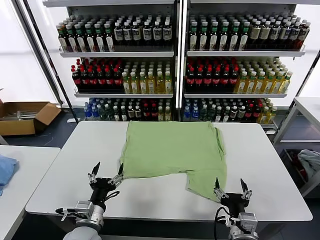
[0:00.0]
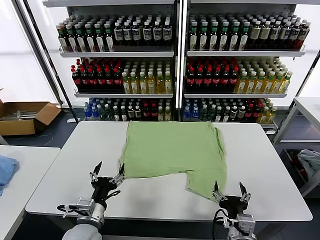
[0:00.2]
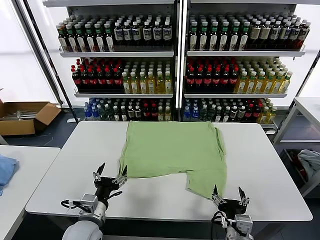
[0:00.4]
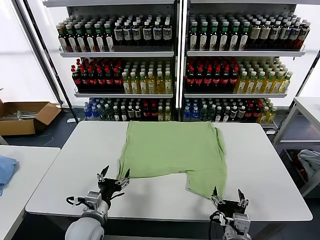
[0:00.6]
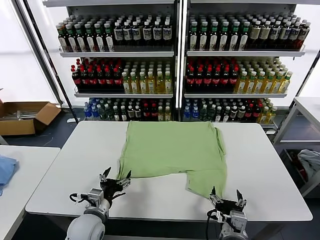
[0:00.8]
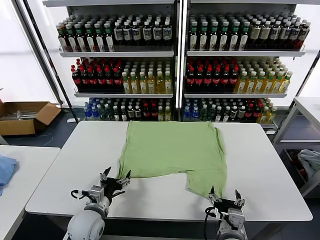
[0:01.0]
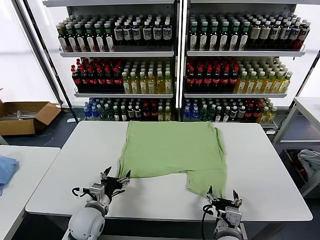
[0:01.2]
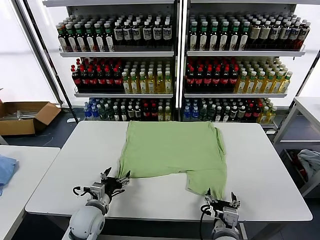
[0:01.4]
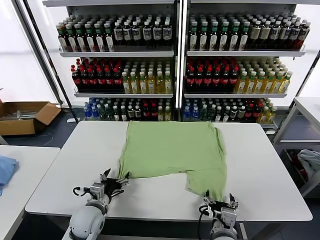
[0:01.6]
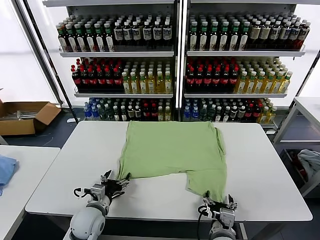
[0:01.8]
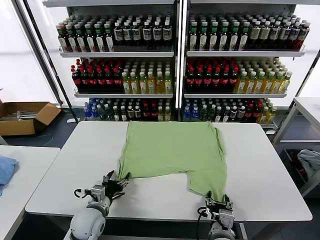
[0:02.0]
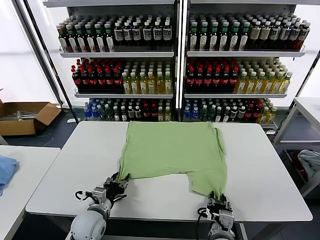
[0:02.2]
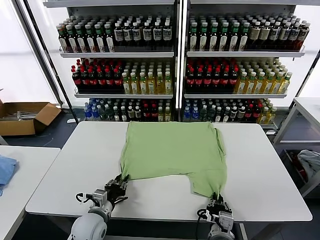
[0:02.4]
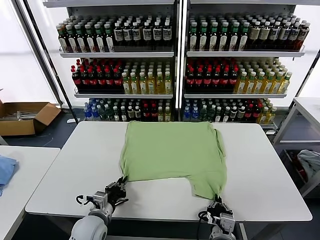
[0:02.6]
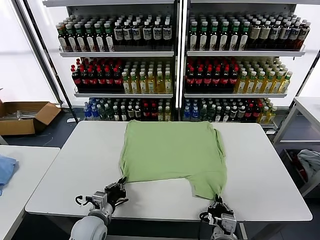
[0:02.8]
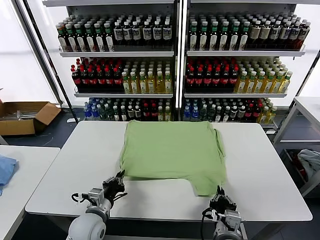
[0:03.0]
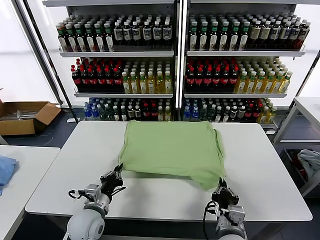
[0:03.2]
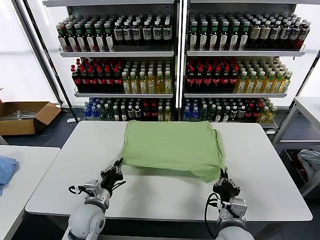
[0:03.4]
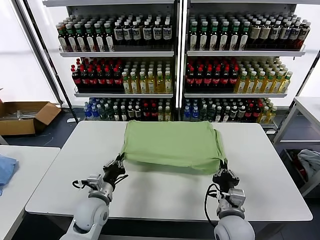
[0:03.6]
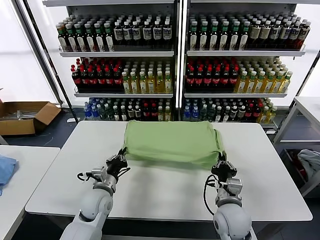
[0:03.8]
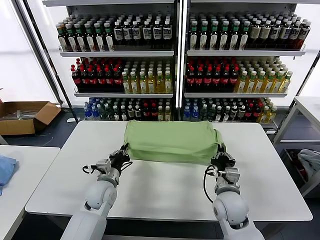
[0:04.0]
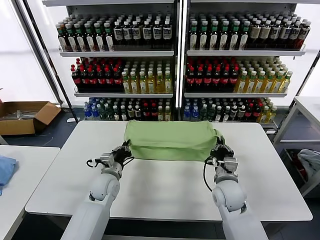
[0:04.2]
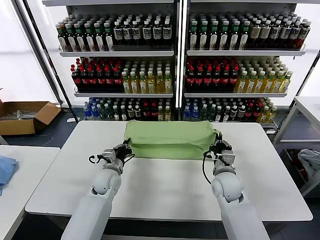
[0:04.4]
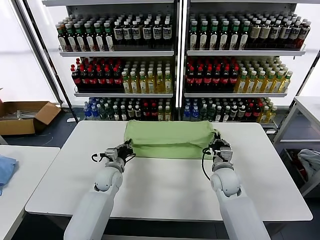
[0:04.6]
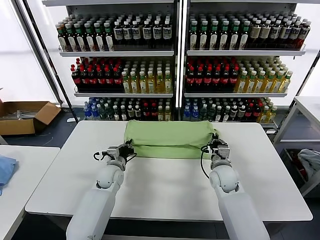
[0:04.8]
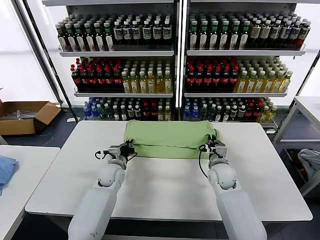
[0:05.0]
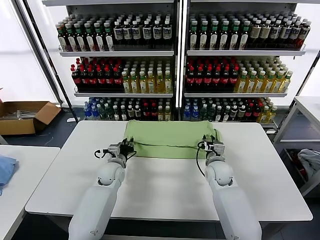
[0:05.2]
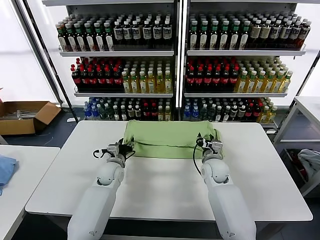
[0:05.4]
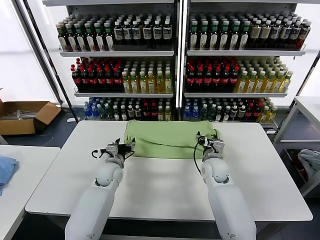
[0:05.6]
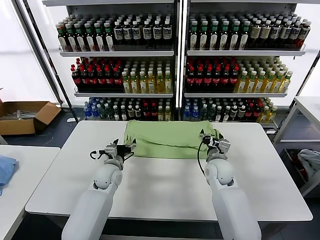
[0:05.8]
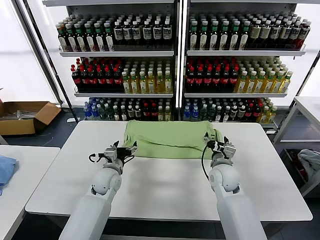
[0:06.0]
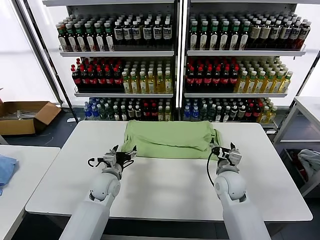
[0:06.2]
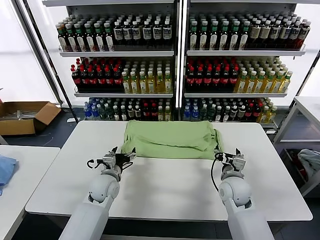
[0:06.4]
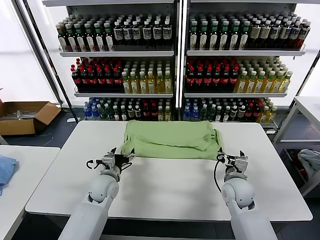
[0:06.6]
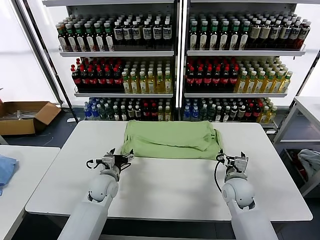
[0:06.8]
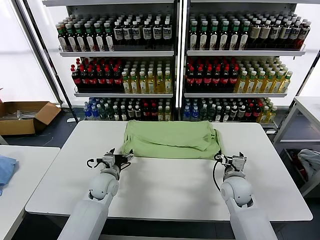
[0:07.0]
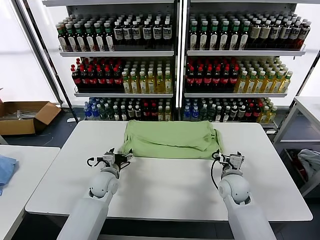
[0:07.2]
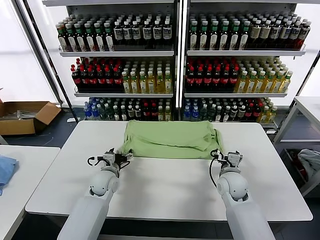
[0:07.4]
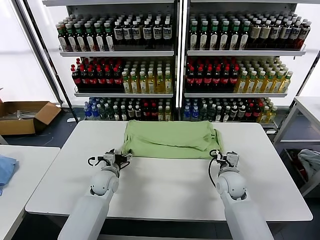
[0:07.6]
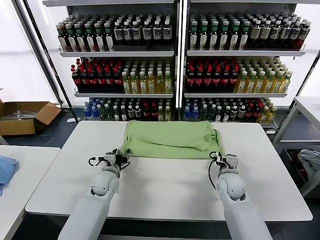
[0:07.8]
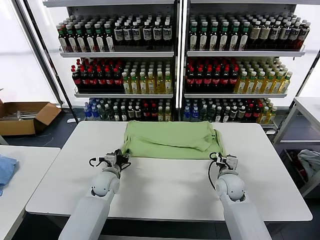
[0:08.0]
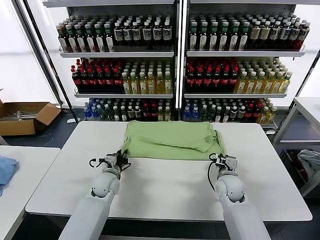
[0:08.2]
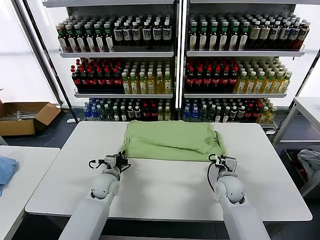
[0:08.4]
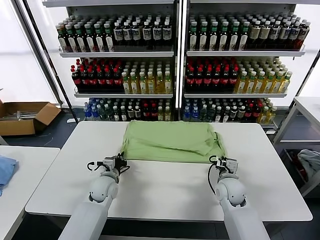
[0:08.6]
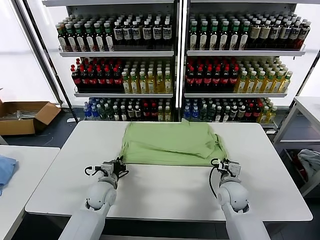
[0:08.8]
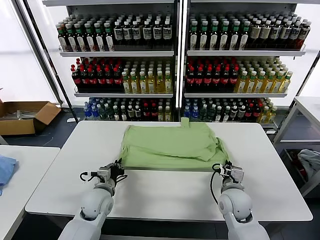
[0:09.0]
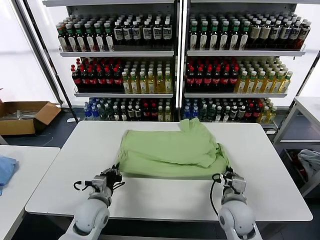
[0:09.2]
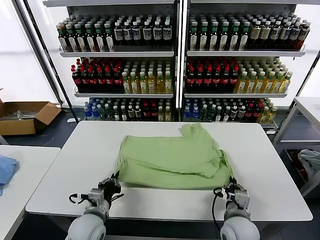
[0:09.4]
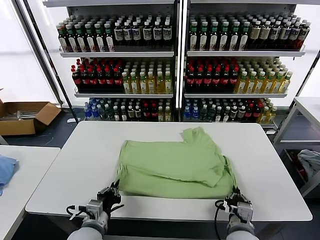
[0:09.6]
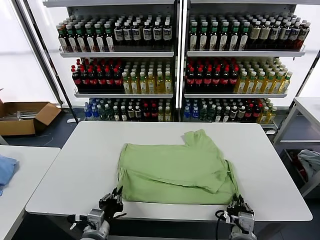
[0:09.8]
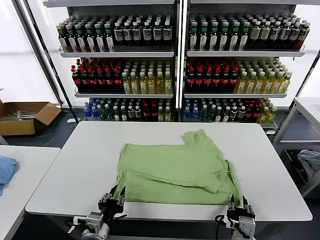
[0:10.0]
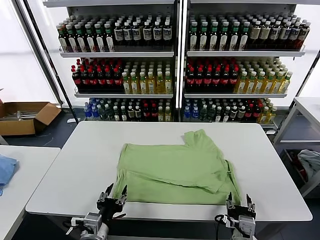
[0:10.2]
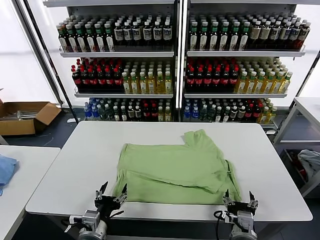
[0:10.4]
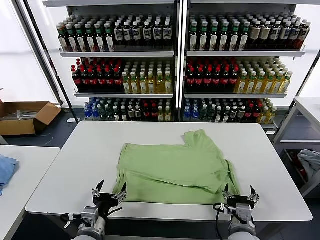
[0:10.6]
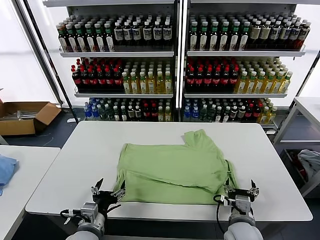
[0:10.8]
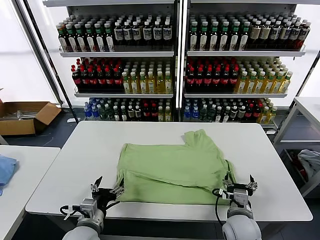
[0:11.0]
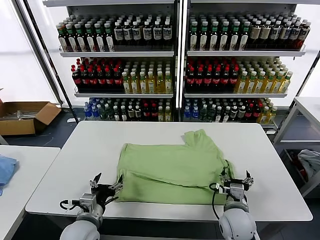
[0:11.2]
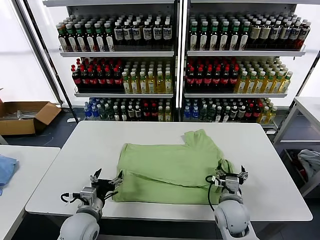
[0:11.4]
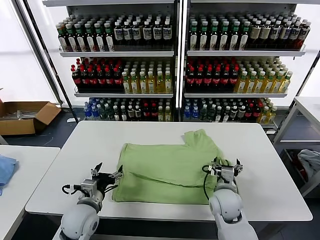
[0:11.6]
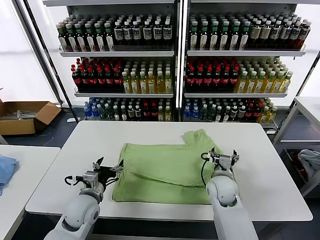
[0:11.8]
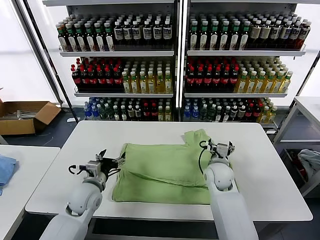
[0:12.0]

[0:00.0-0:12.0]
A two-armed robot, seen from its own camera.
Task of the whole recording: fold and organize the clothes.
Step, 0.0 to 2.6 s: use both grippers simultaneously to clamp the lower edge of the clothing fabric.
Step, 3.0 to 5.4 s: use both grippers to drag the lower edge of the fabric forward and fold it over the upper edge.
Step, 5.8 to 10.0 s: Drag the clothes downward with both gripper.
1.6 to 3.0 s: The left gripper closes up; the right gripper closes up.
3.0 to 4.4 s: The grippers both shift forward by roughly 20 cm.
4.4 to 6.0 s: The right gripper opens, while the left gripper opens.
6.0 to 7.6 s: The right gripper closes.
7.6 to 9.0 s: Both grippers move backward, approximately 10 cm. The left gripper closes up. Meanwhile the right gripper closes up.
9.0 to 10.4 s: The left gripper is displaced backward by some 15 cm, and opens its fingers; the right gripper travels backward by about 10 cm, and opens its fingers.
10.4 to 12.0 s: The right gripper moves forward, roughly 25 cm. Meanwhile the left gripper shifts approximately 15 cm forward.

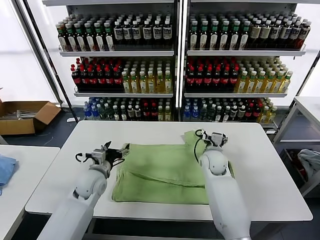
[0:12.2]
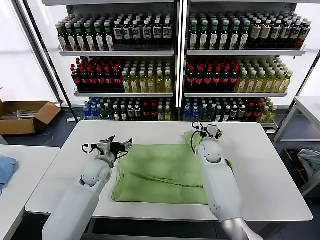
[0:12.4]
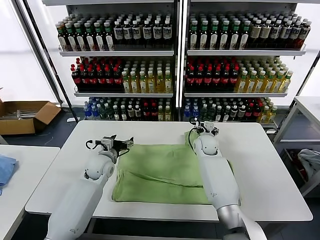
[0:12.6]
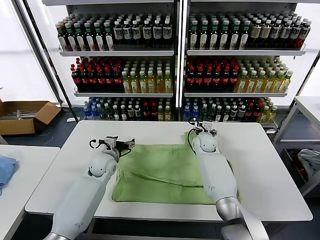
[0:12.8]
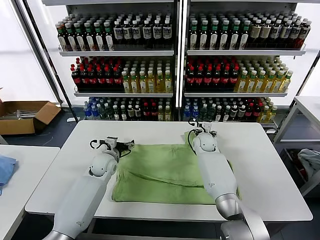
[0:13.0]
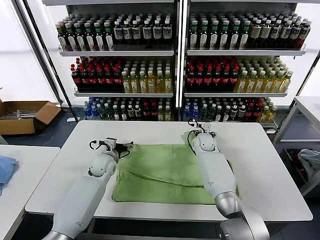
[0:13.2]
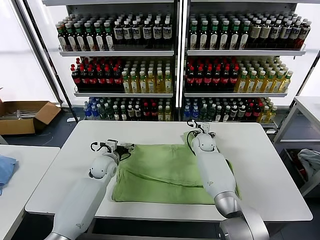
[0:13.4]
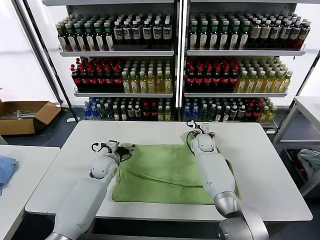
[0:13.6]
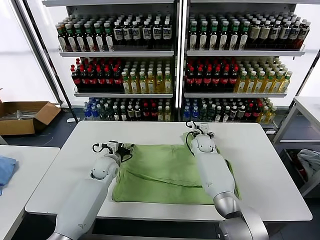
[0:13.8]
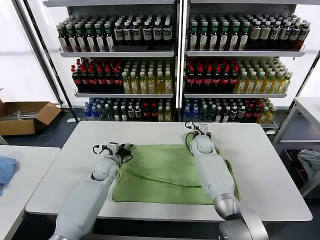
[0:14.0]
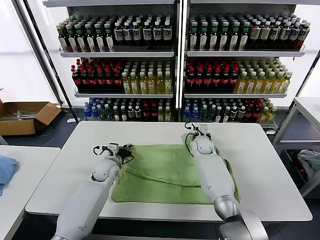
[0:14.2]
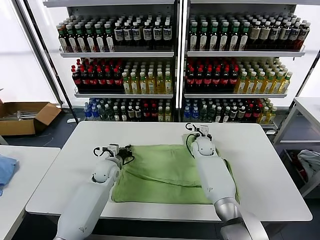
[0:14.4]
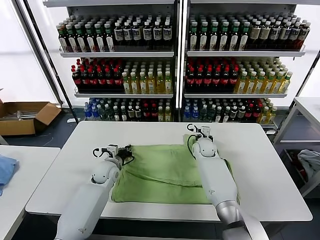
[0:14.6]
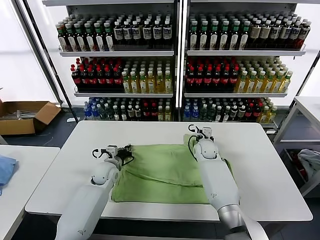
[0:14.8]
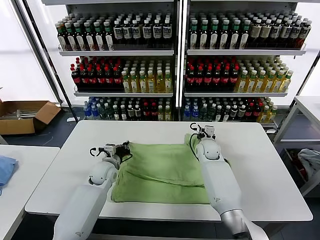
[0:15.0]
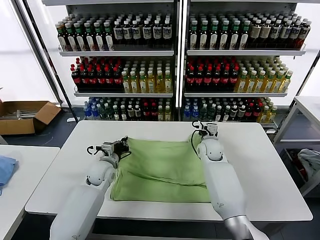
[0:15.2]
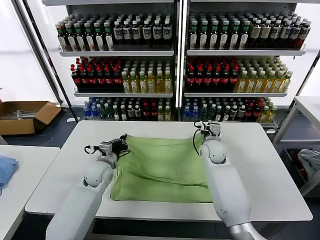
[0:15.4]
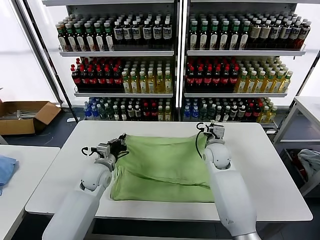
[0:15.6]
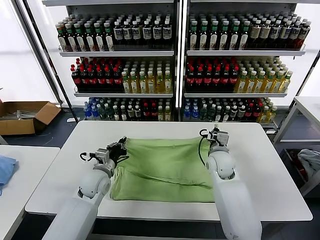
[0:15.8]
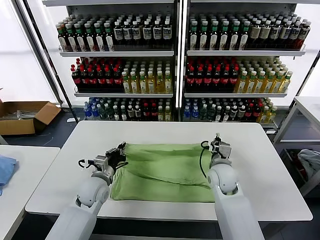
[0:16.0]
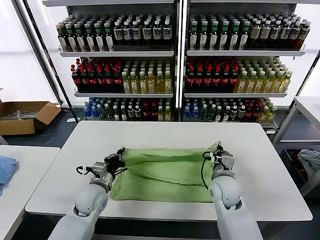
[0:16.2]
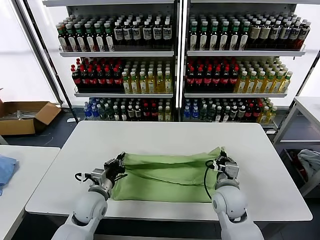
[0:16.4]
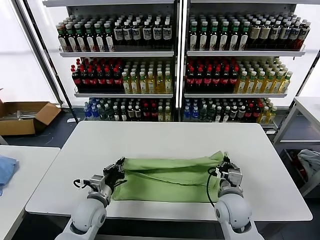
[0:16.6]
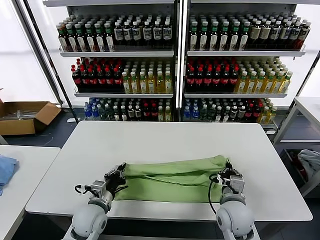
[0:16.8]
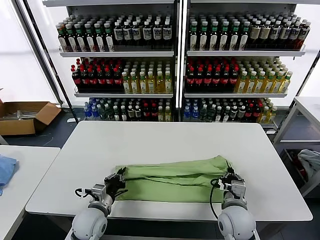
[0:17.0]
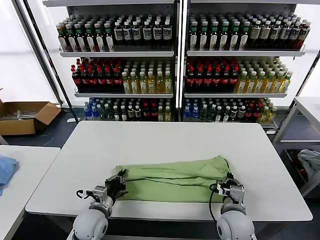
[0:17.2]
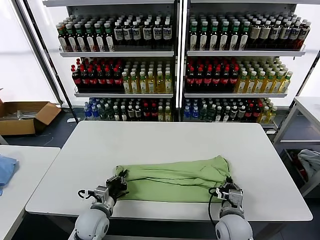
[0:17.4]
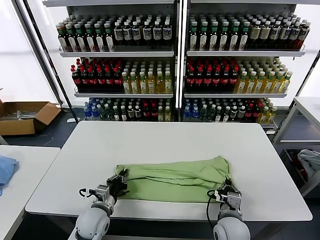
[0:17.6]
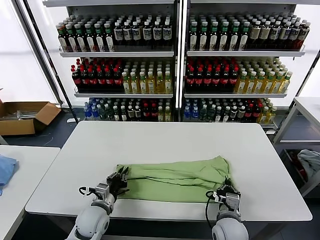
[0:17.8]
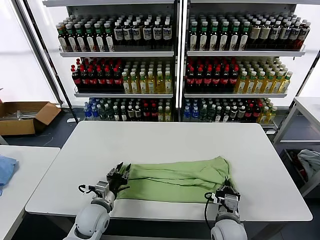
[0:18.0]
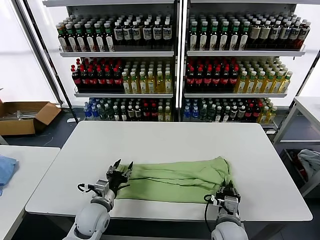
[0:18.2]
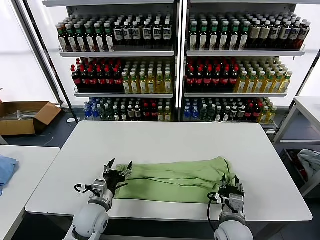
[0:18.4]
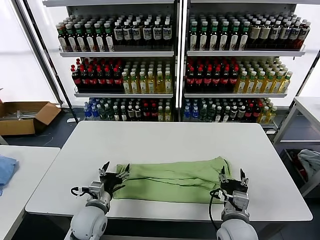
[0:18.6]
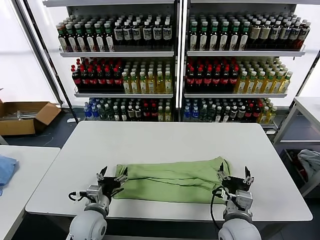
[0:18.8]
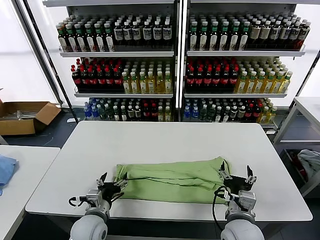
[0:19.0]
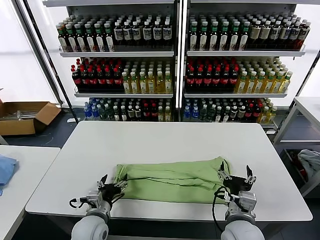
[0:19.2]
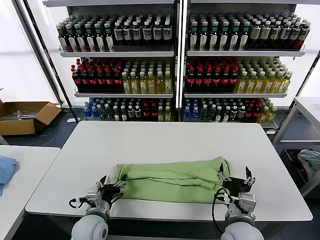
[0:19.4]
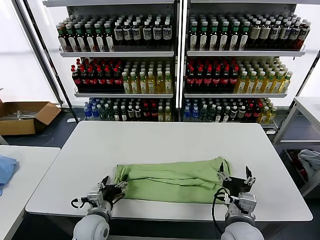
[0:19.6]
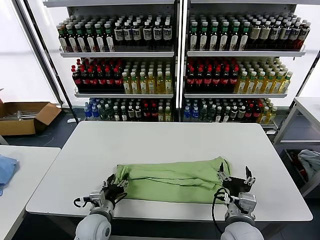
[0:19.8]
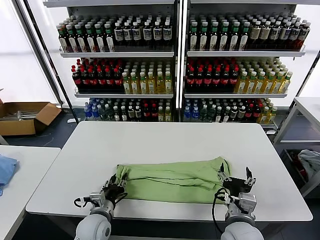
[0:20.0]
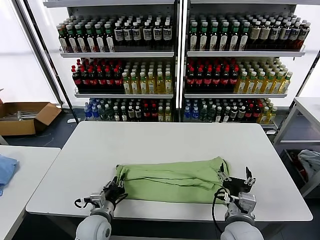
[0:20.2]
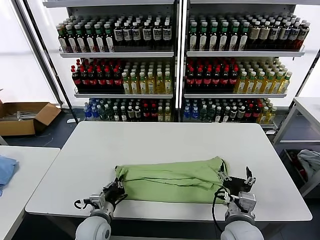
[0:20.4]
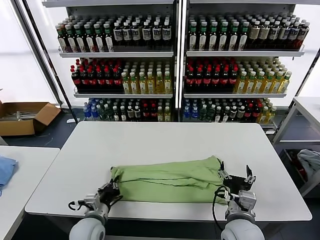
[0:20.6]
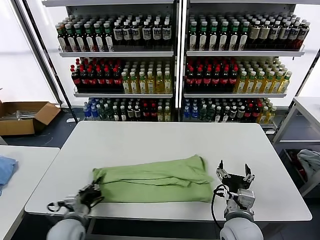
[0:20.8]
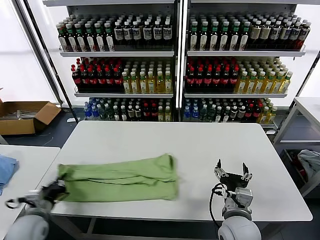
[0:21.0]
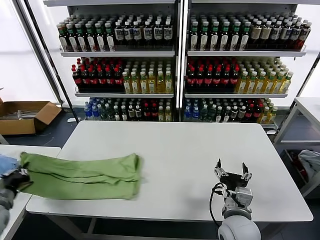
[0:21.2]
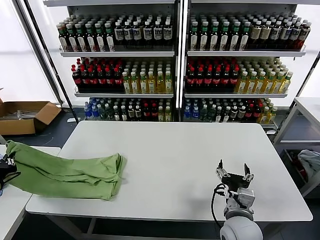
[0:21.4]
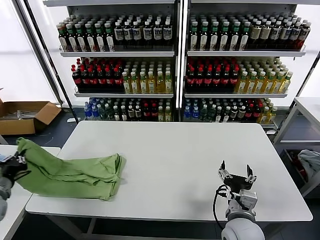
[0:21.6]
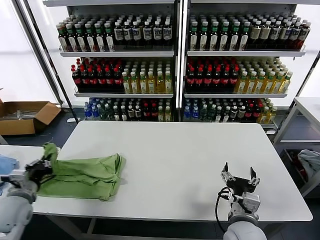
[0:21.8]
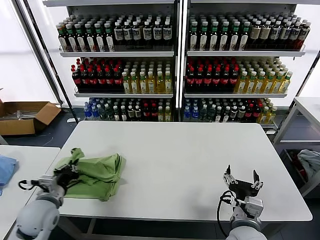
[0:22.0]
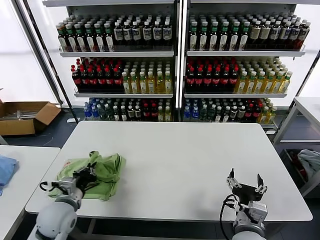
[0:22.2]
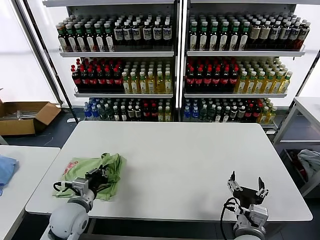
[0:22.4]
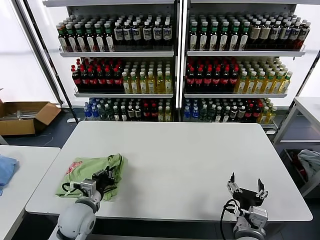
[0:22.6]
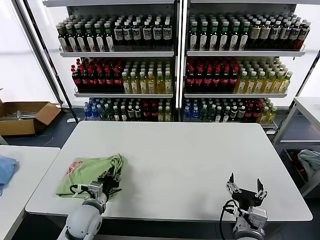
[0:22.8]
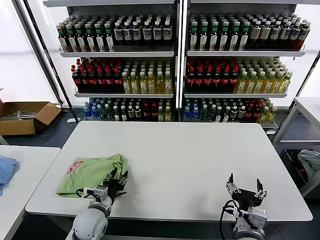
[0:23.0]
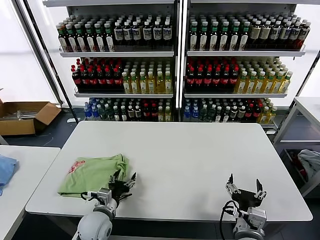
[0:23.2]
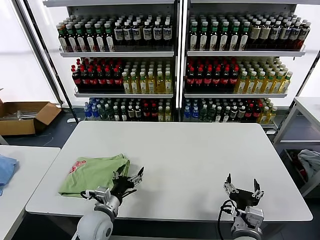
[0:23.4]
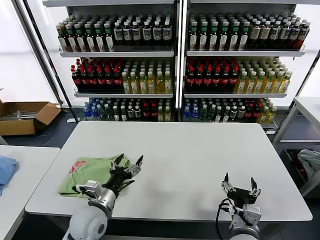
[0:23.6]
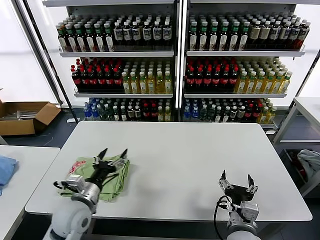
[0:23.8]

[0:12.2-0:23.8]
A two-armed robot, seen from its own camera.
Task of the whole recording: fold and organize the clothes.
Step, 12.2 to 14.4 s: use both grippers simultaneously to clamp the upper edge of the clothing fabric.
Step, 14.8 to 18.4 s: use both grippers to drag the upper edge of the fabric backward and fold it over the lower edge.
Step, 18.8 to 20.2 s: use the left gripper to clamp the left edge of the fabric.
Step, 20.4 to 23.2 s: use the left gripper to drag the left edge of the fabric to the left and folds it over the right edge.
12.2 to 13.6 s: Both grippers move forward, approximately 10 cm.
13.6 to 15.0 s: The right gripper moves backward, approximately 5 cm, and closes its fingers. The left gripper closes up.
15.0 to 16.6 s: The left gripper shifts some 15 cm backward, while the right gripper heads backward, covering some 25 cm.
16.6 to 18.0 s: The right gripper moves downward, about 5 cm.
18.0 to 19.4 s: The right gripper goes approximately 10 cm upward, and opens up. The left gripper opens its fingers.
19.4 to 21.0 s: The left gripper heads to the left, covering roughly 15 cm, and closes up.
21.0 to 22.4 s: The left gripper is displaced to the right by some 10 cm; the right gripper moves roughly 5 cm.
22.4 to 23.8 s: The left gripper moves roughly 5 cm downward and comes back, and opens its fingers.
